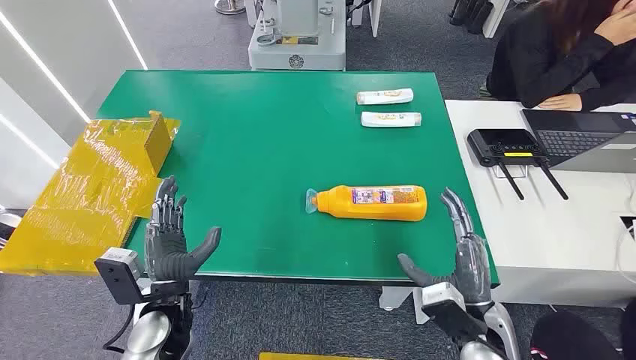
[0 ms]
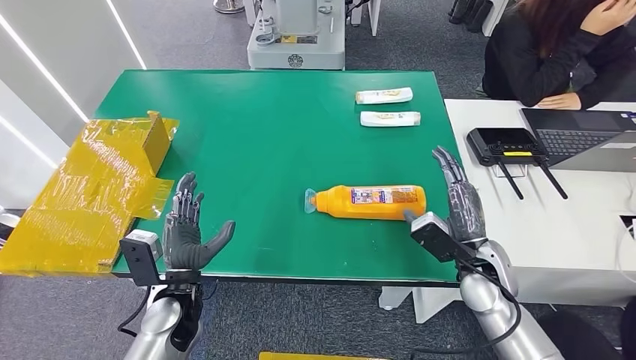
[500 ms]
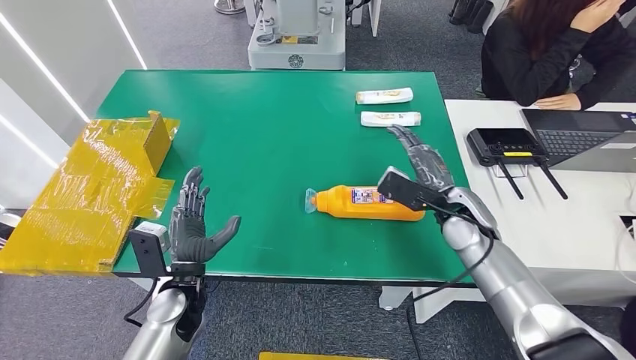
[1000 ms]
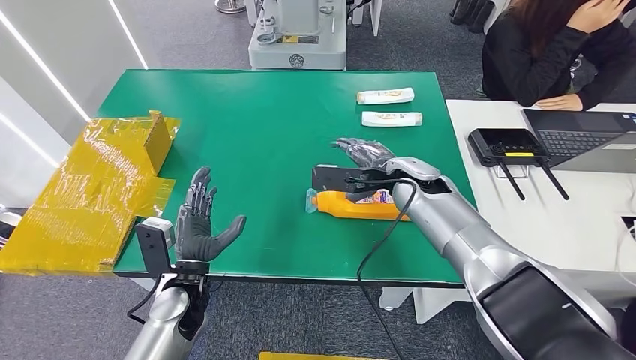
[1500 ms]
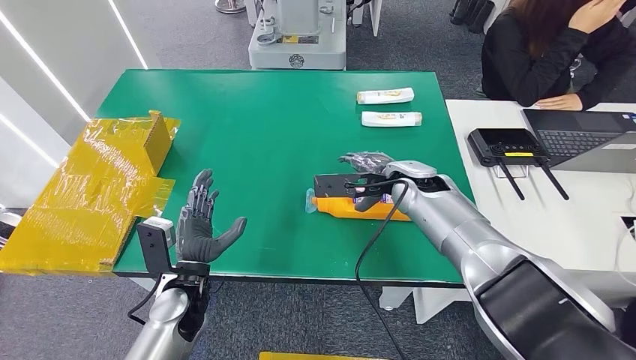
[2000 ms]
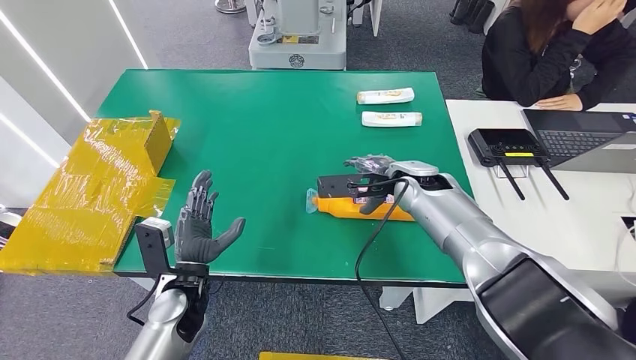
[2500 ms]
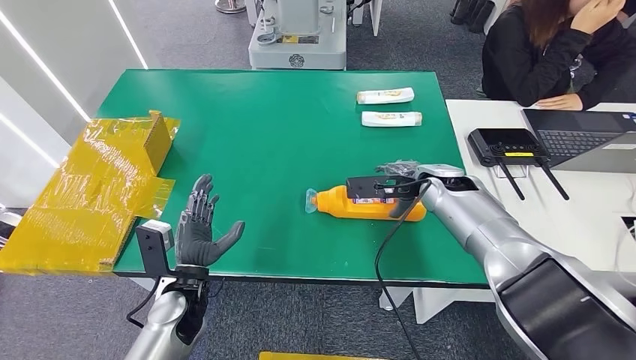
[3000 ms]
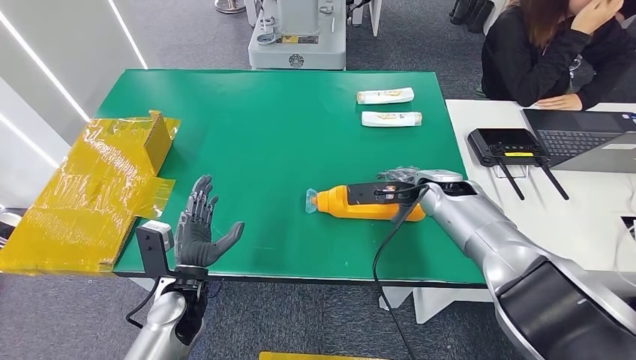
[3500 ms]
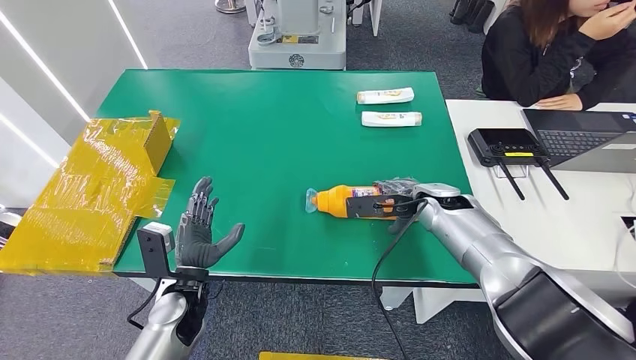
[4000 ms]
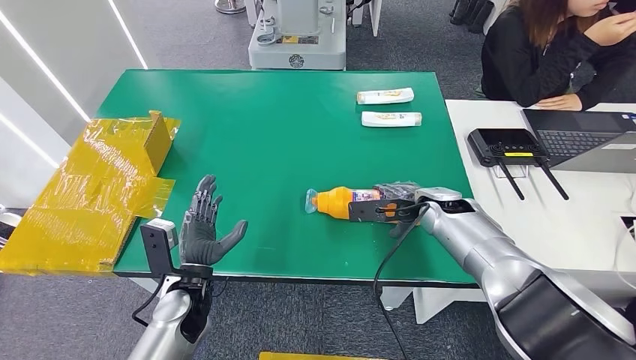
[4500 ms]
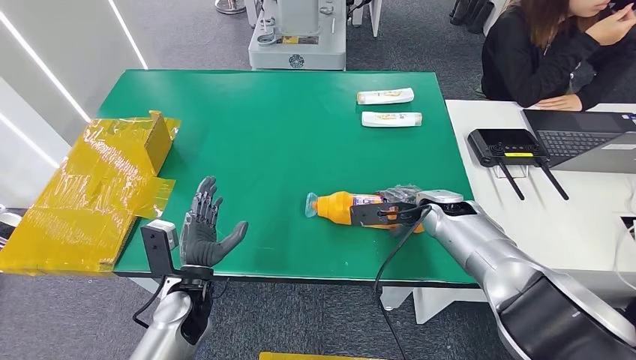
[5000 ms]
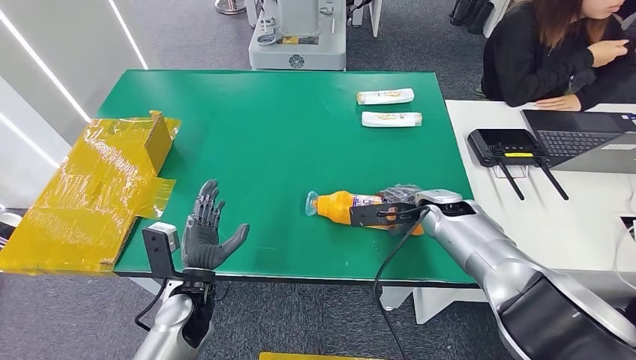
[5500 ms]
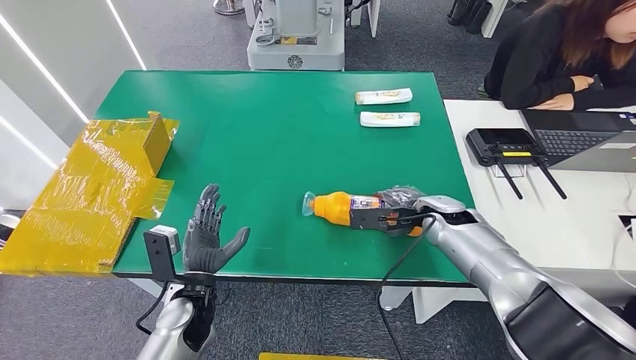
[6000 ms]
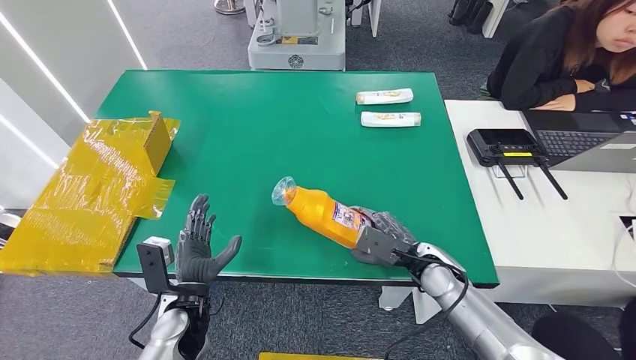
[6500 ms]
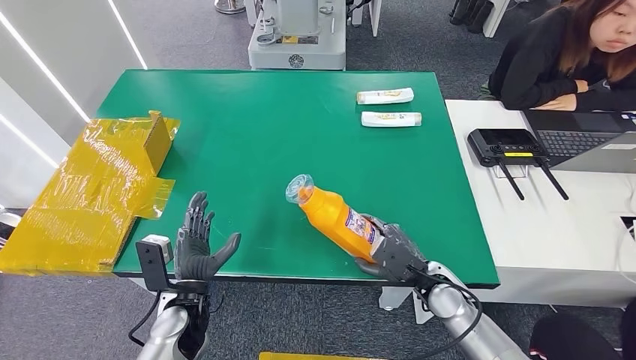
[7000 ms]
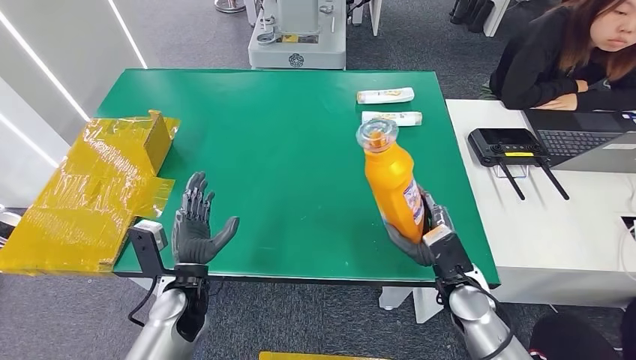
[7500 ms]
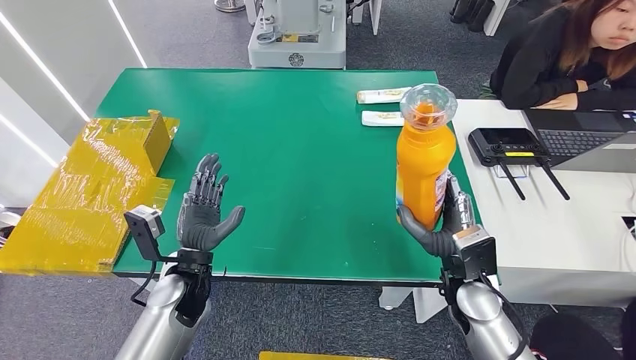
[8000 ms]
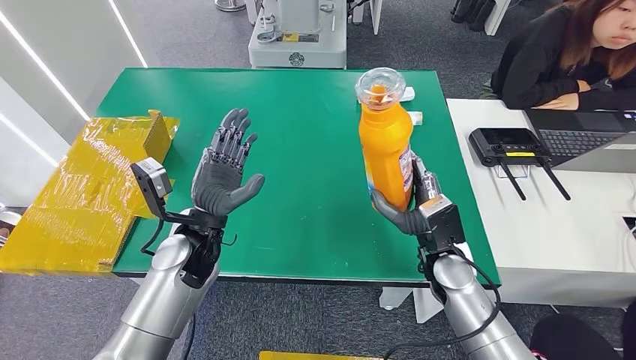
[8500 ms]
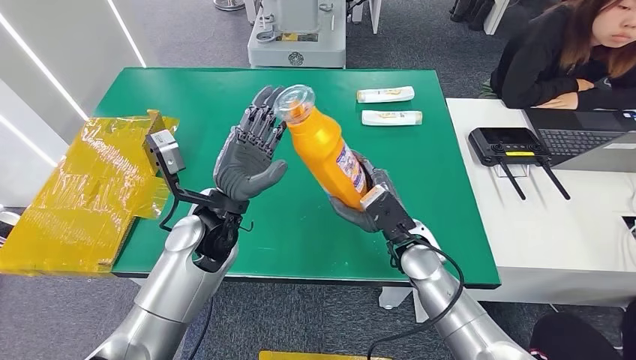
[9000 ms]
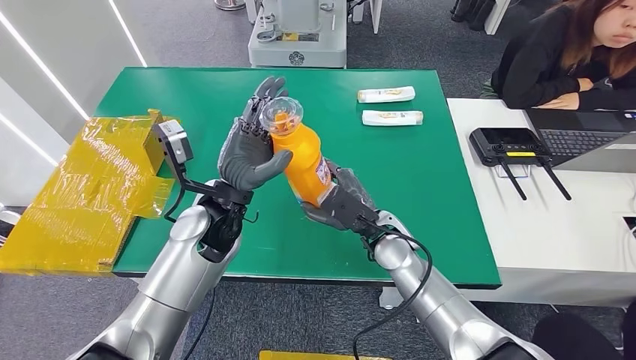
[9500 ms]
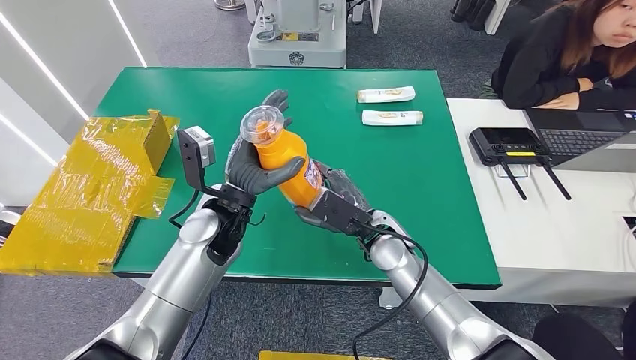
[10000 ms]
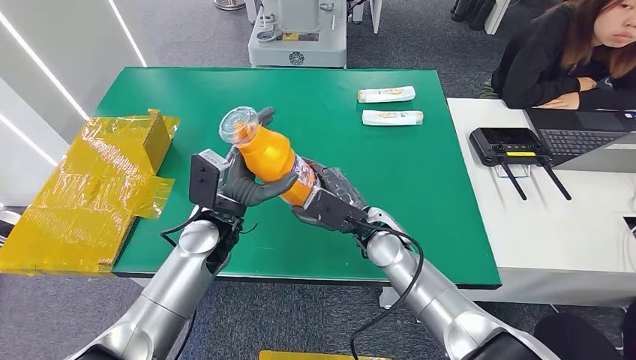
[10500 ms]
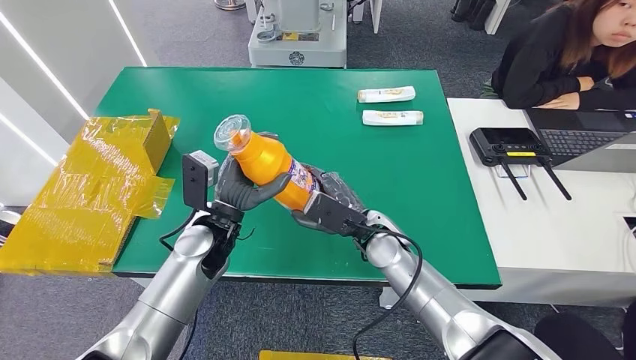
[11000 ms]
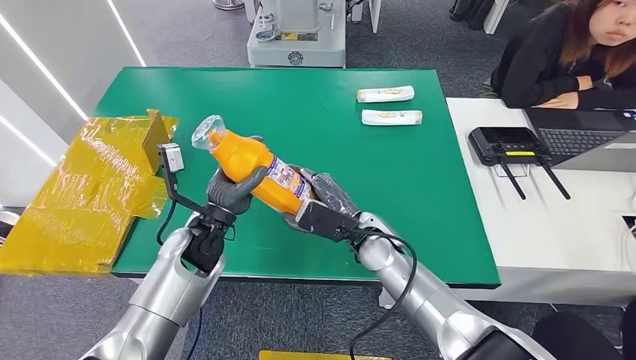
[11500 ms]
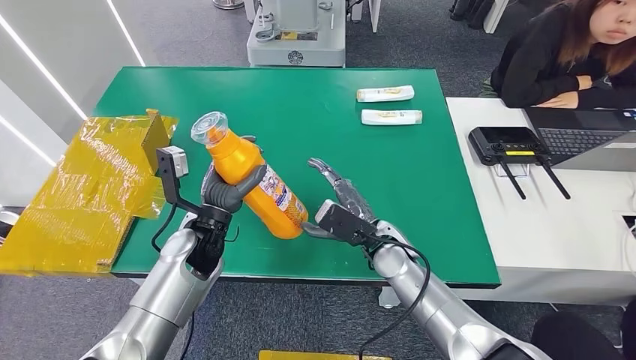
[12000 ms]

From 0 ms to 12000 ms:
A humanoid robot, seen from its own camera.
Step, from 0 ms to 6500 ms: Pick up the bottle from the table.
From 2000 ms to 4000 ms: The right hand moves to the right, roughly 5 cm.
From 4000 ms to 6000 ms: There are only small adjustments of the hands.
From 10000 ms to 12000 ms: The left hand travels downward by some 5 cm.

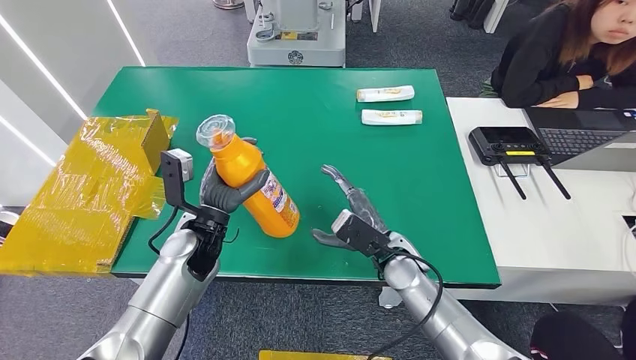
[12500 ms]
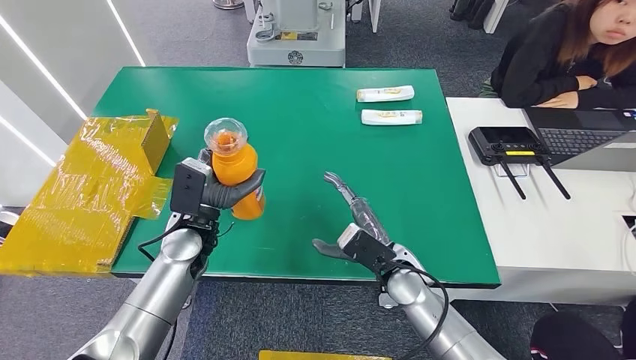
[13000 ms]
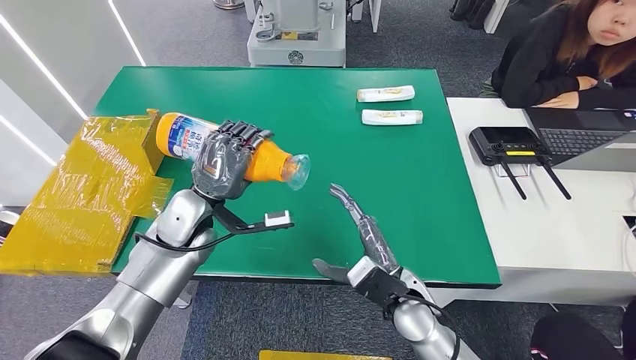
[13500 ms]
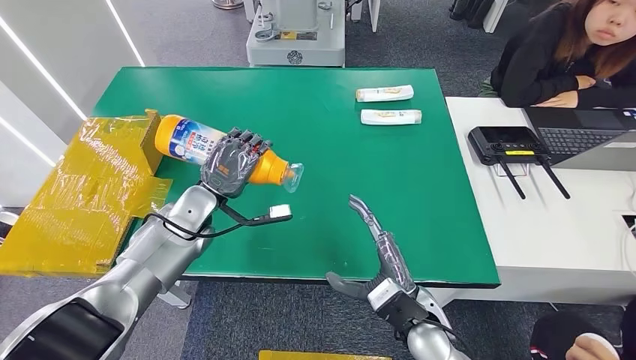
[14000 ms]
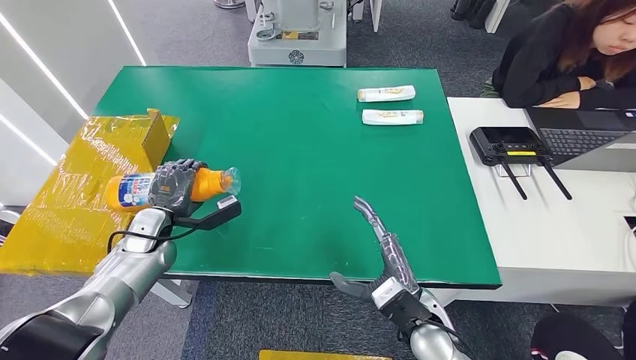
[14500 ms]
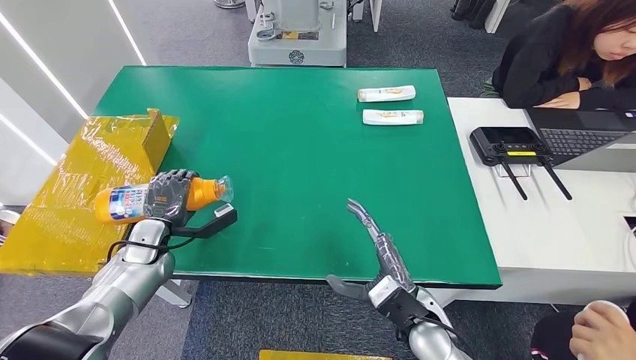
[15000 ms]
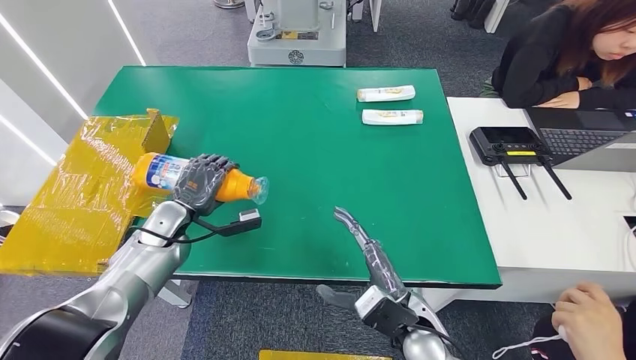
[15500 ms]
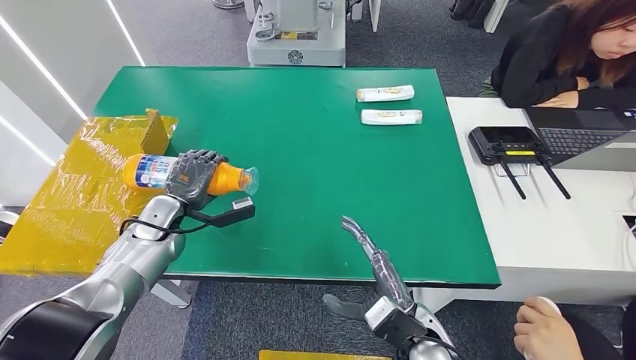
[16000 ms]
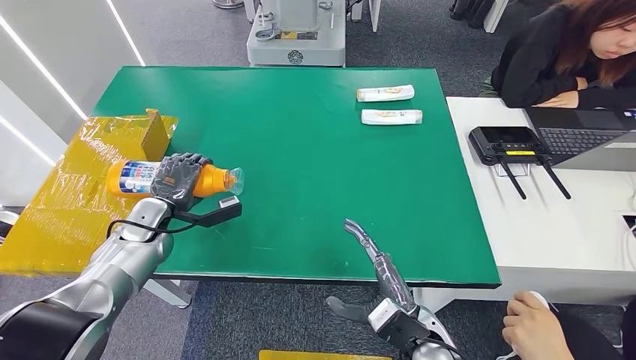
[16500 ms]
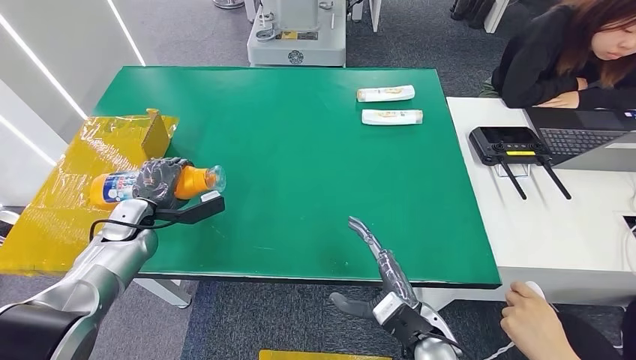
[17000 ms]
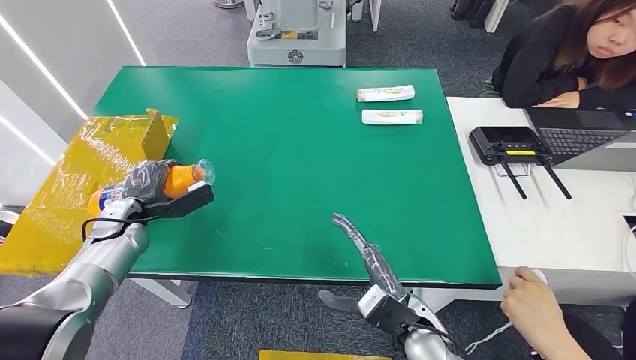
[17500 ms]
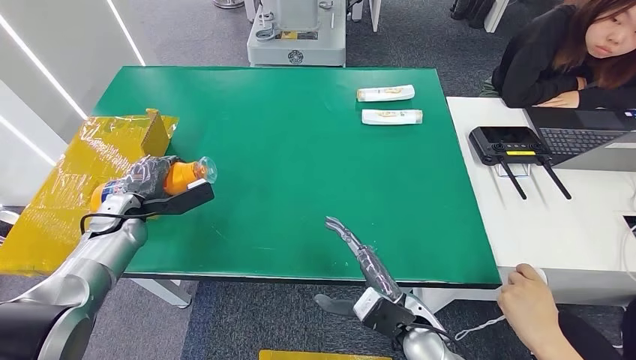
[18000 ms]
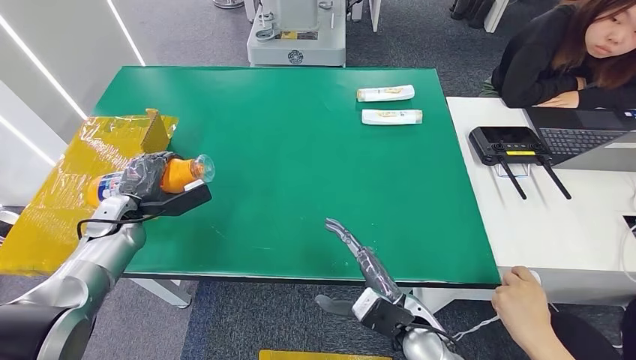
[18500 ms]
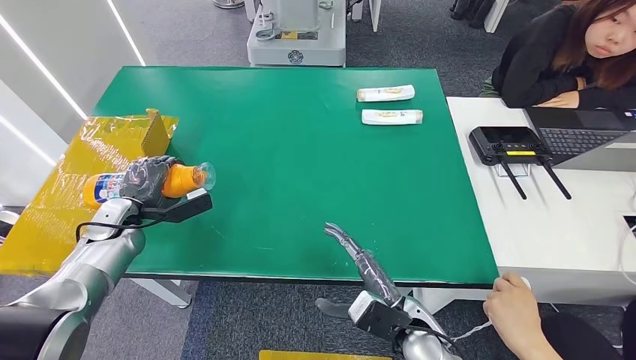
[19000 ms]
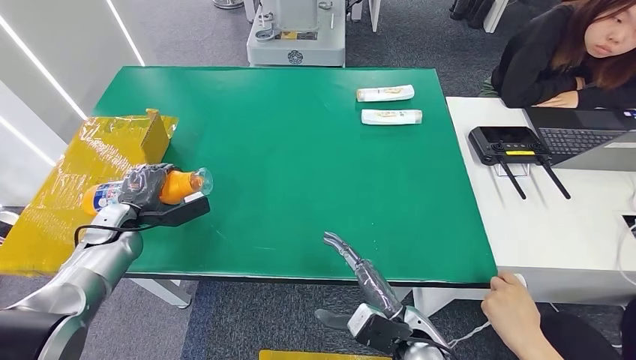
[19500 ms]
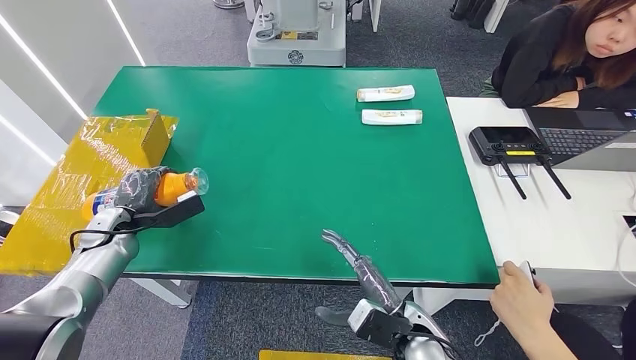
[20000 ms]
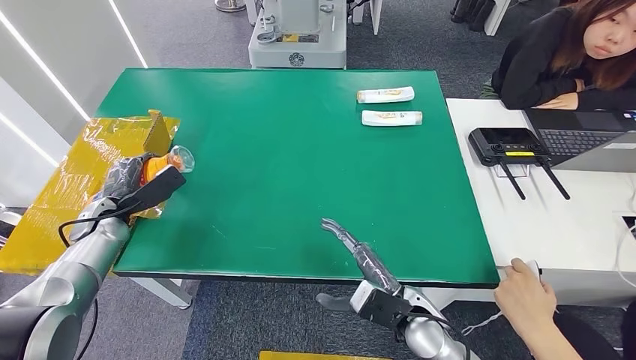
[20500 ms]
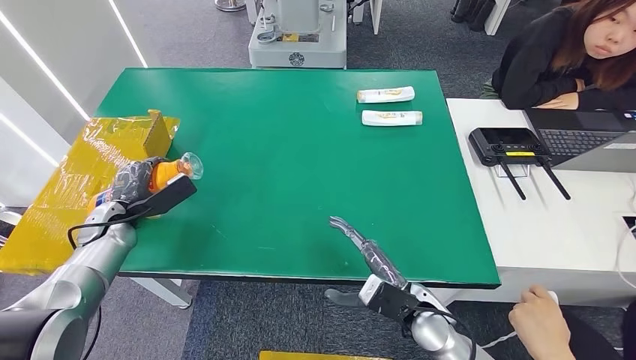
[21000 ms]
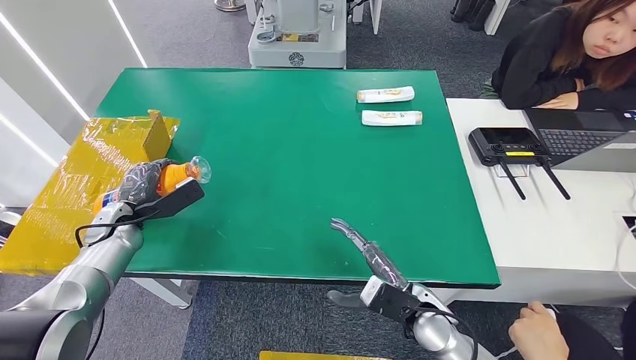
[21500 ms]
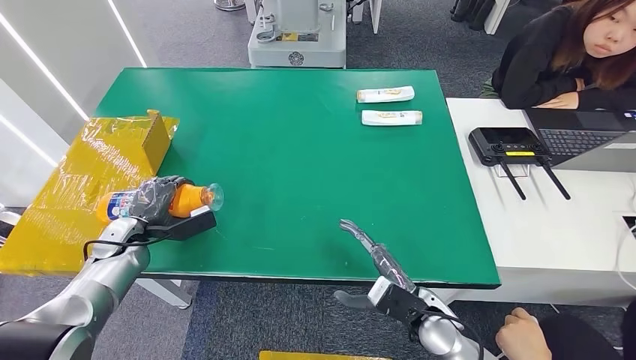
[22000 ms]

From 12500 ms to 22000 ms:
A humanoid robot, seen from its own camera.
From 14500 ms to 16500 ms: The hands stay close to where they were, moving slightly.
From 16500 ms to 18000 ms: The left hand travels to the left by some 5 cm.
From 18000 ms to 20000 ms: The hands stay close to where they were, moving slightly.
From 20000 ms to 22000 ms: There are only small adjustments of the hands.
